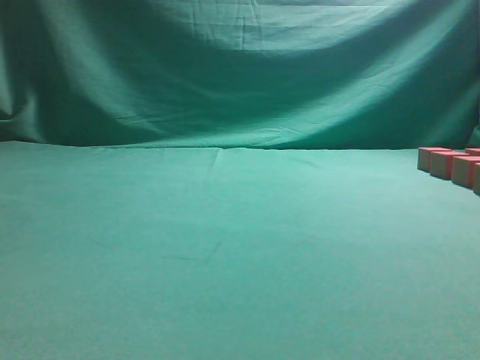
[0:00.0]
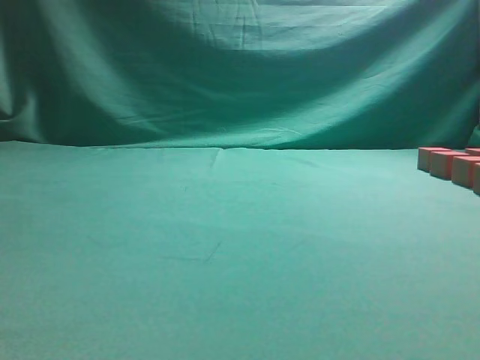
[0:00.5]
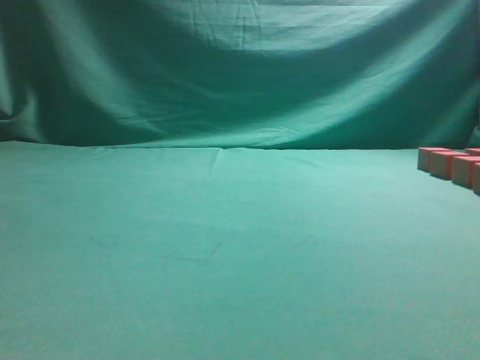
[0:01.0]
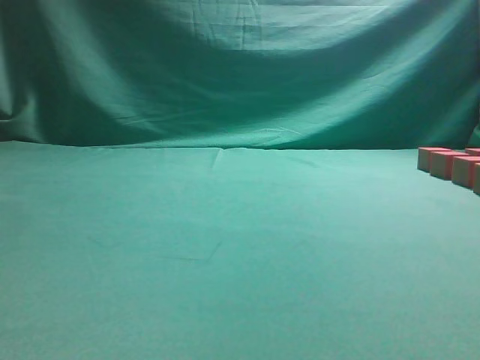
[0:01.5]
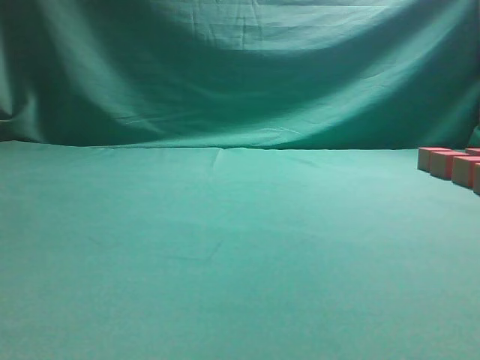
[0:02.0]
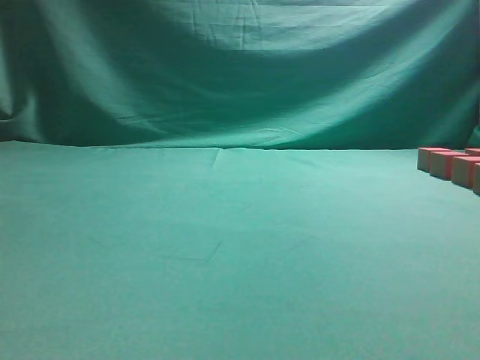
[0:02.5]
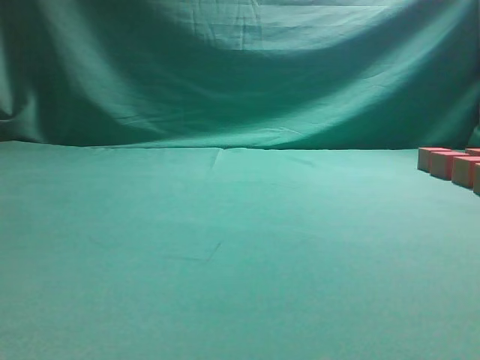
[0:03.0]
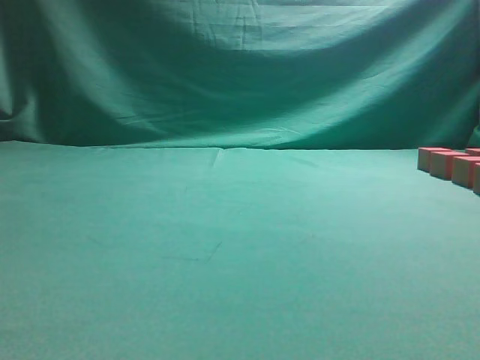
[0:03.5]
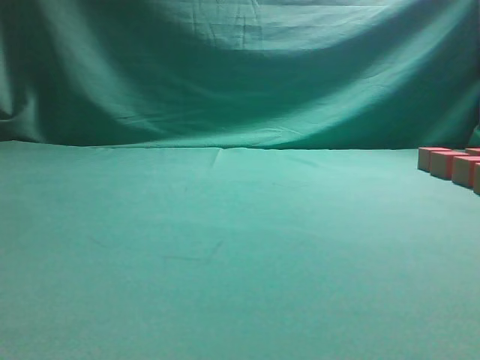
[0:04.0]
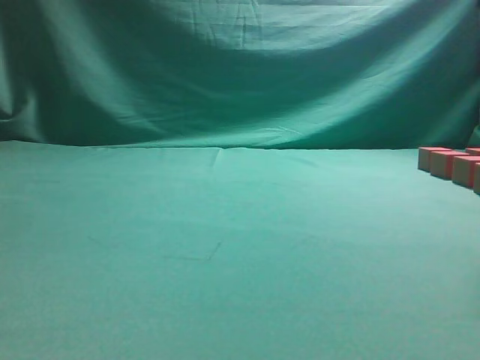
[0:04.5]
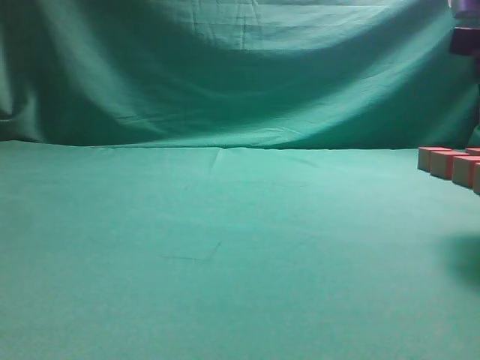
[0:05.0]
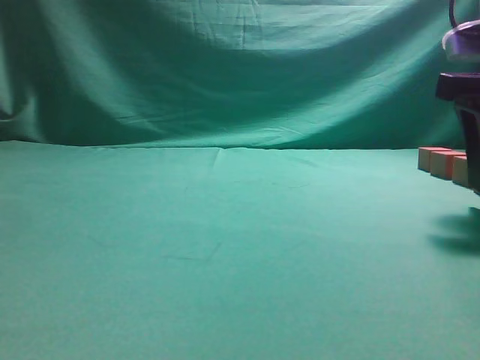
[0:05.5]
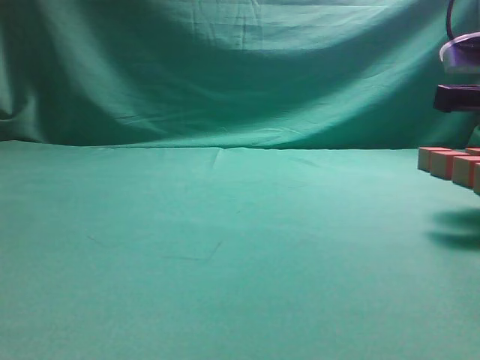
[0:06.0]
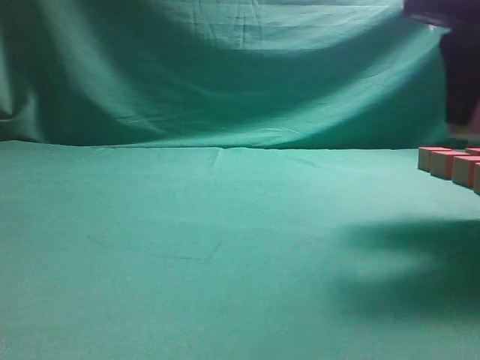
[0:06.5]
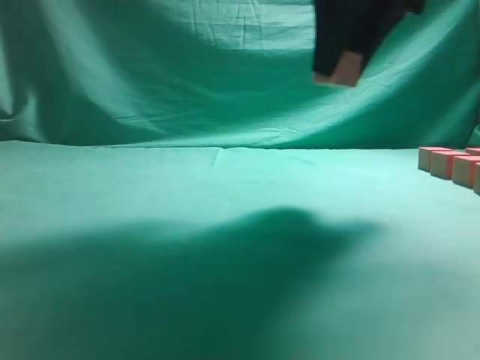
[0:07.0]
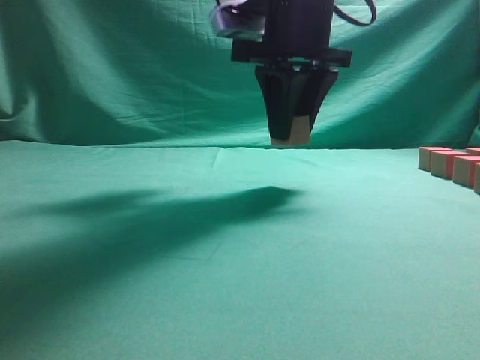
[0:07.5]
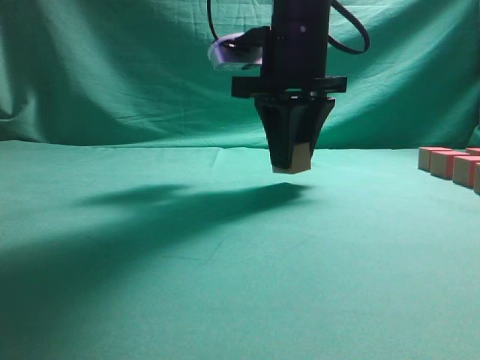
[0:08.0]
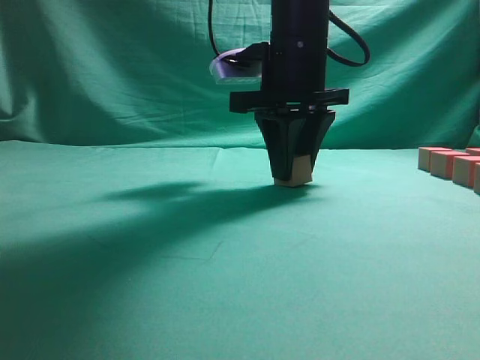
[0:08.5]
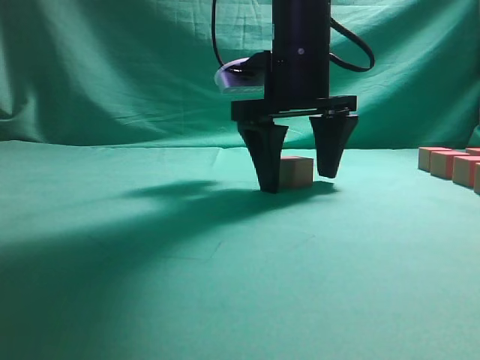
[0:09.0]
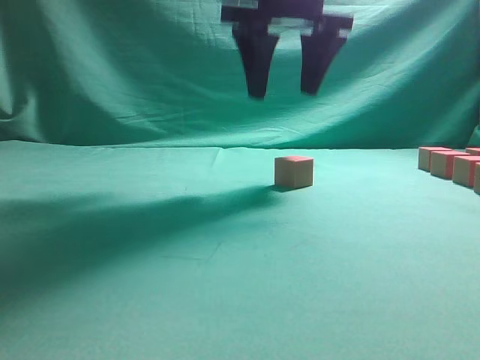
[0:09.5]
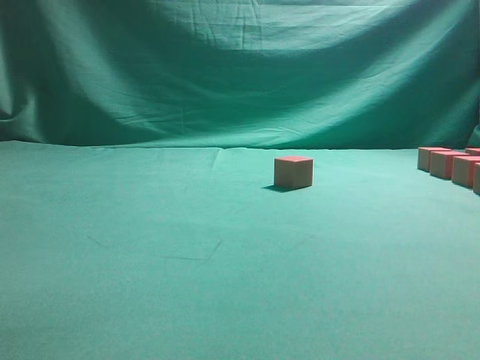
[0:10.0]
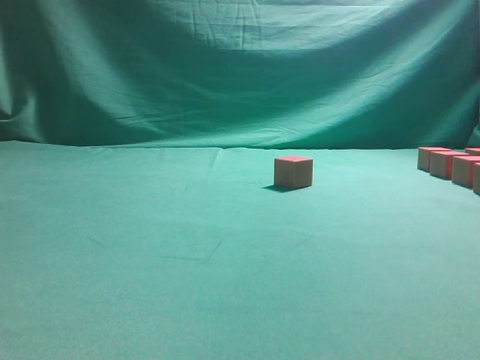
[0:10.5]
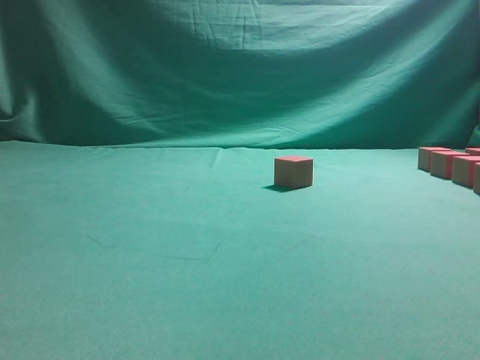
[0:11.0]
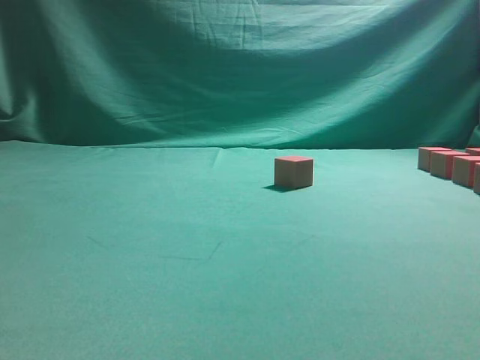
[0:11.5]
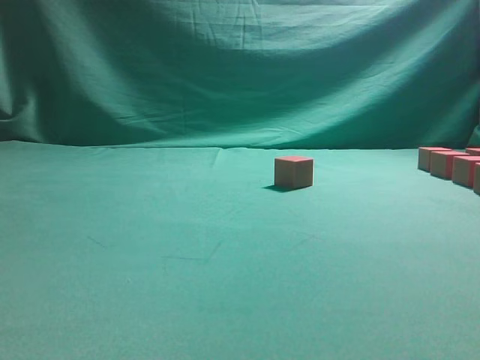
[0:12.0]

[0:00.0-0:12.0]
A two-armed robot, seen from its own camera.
Task of the whole recording: pick up the multiple cubes in two columns one by one and place them in another position on the table.
Step, 0:00.0 to 0:06.5: Pick up the block on the table.
Step, 0:07.0 to 0:09.5: Place the block at the correct position to assemble the letter S.
0:04.0 to 0:06.0: The right gripper goes roughly 15 cm forward and downward, and opens its fingers.
0:06.0 to 0:08.0: The right gripper travels to the left and forward by approximately 20 cm.
0:08.0 to 0:10.0: The right gripper travels upward by about 25 cm, and opens.

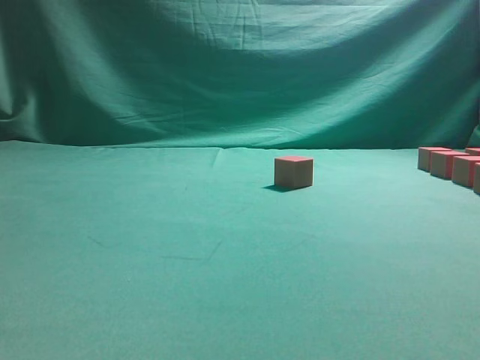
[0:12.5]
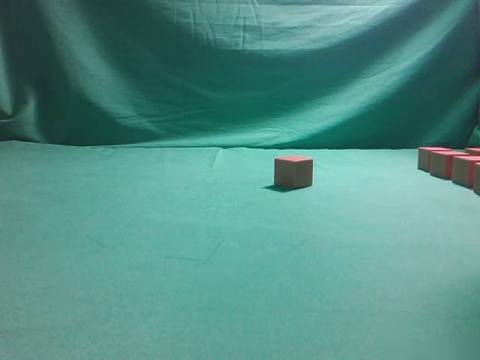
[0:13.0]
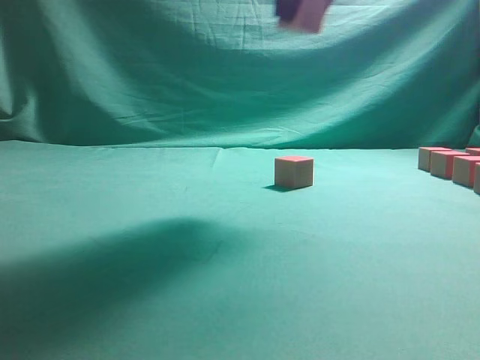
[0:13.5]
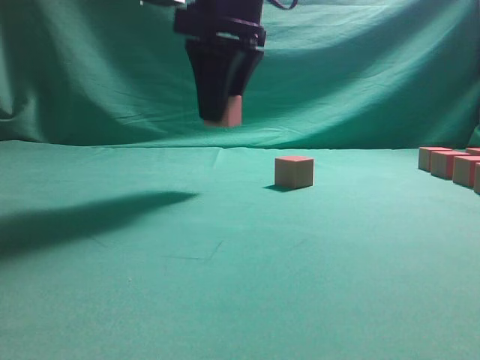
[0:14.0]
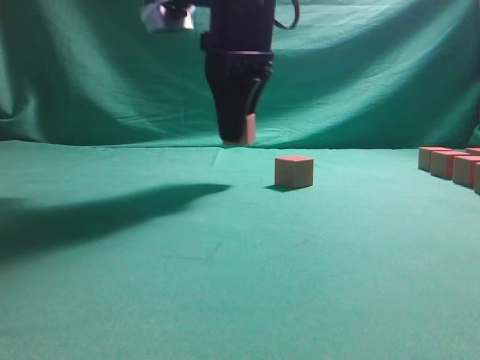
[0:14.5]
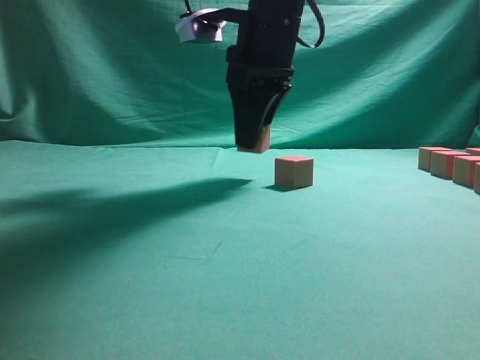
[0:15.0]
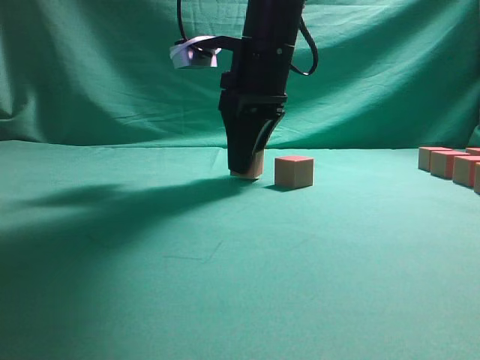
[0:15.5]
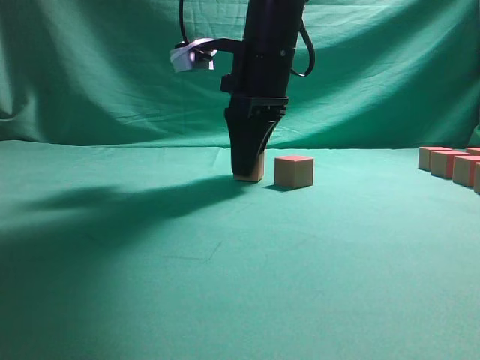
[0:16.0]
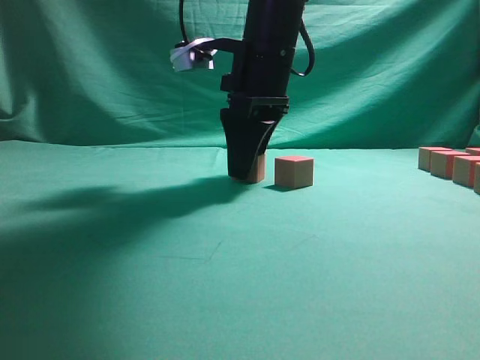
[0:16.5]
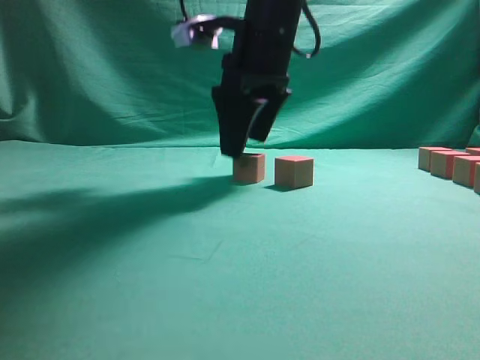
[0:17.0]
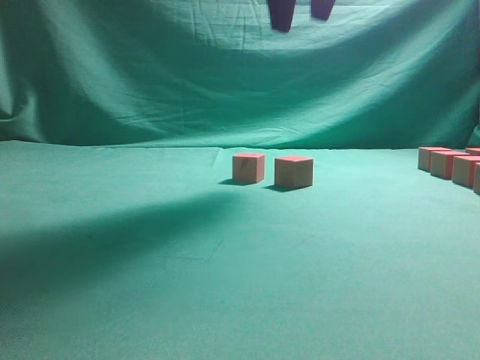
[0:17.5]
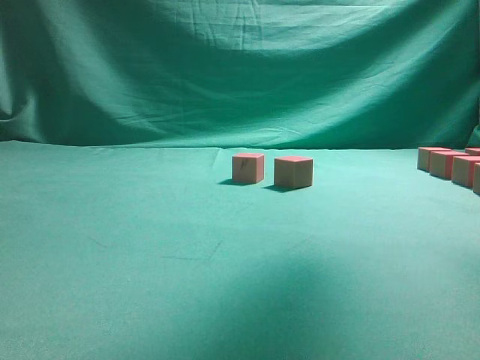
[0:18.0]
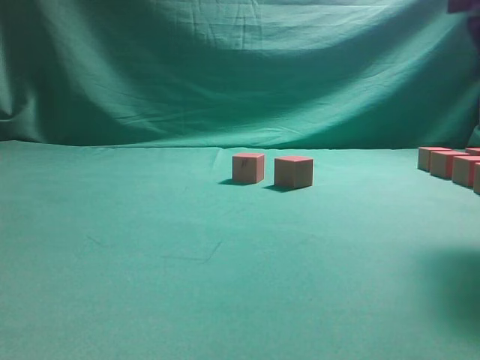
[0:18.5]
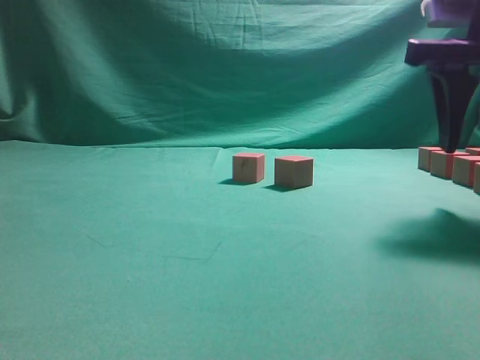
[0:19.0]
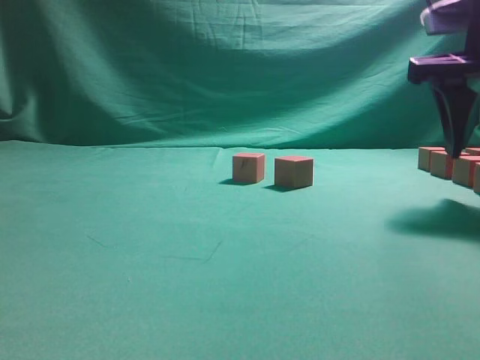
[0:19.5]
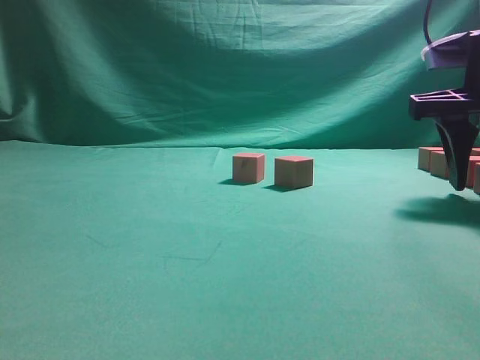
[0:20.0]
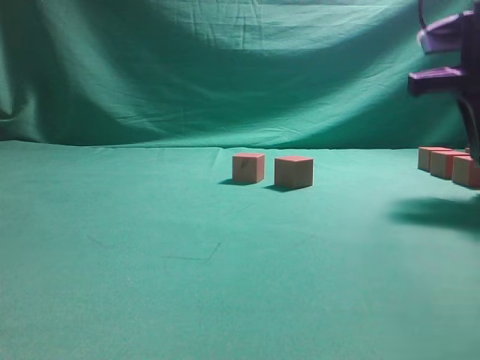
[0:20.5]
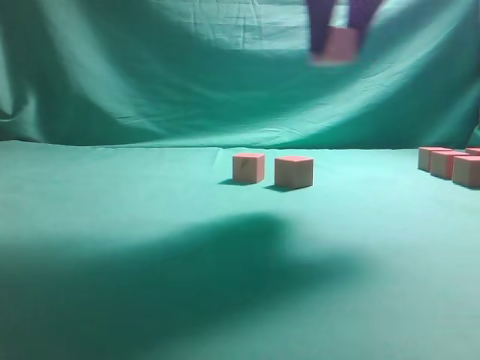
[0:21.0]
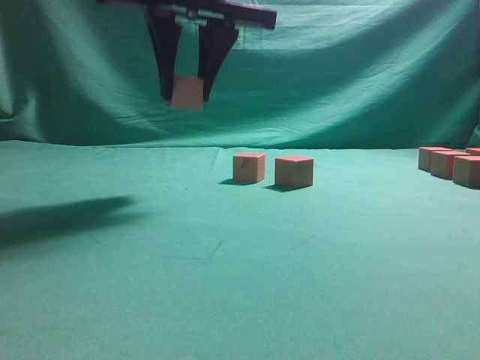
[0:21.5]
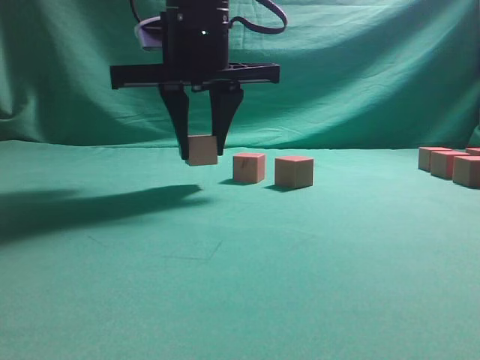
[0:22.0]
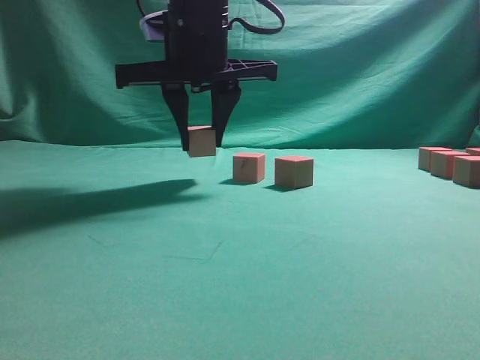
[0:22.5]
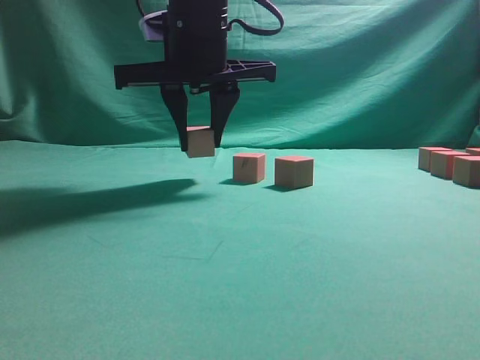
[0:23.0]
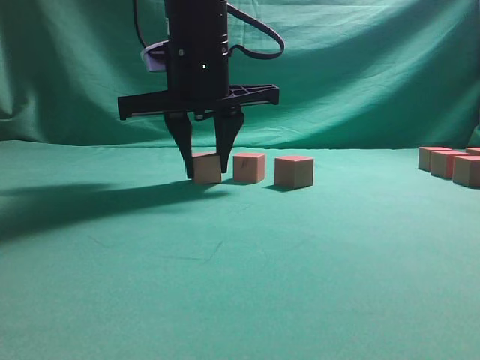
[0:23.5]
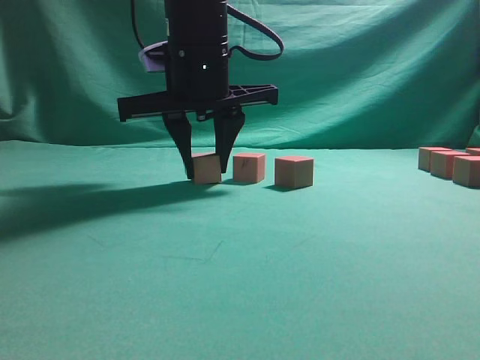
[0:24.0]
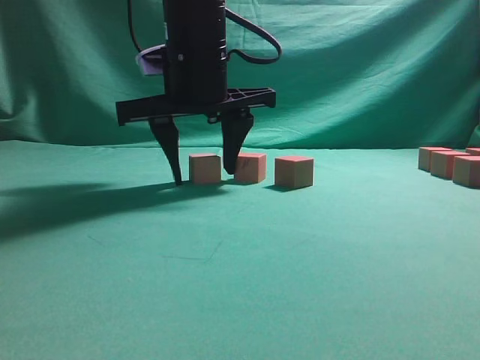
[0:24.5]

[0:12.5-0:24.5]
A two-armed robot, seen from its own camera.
Task of the whole recording: pick up the multiple cubes in two columns one by one and place them in another position on the table.
Step, 0:13.5 to 0:17.0: Place the block at the correct position to assemble the letter S.
Step, 0:17.5 to 0:21.0: Pick up the block on the table.
0:12.5 to 0:14.5: The right gripper goes about 30 cm to the left.
0:14.5 to 0:16.5: The right gripper ends up about 5 cm from where it was.
0:16.5 to 0:18.5: The right gripper shifts approximately 25 cm to the right and backward, and goes upward and returns, approximately 20 cm each way.
0:18.5 to 0:20.5: The right gripper goes some 10 cm forward and downward, and closes up.
0:20.5 to 0:22.5: The right gripper heads to the left, covering roughly 25 cm.
0:22.5 to 0:24.5: There are only small adjustments of the grippers.

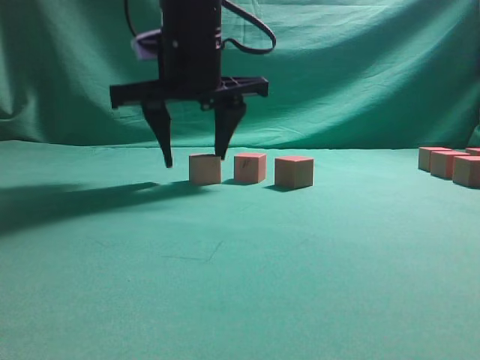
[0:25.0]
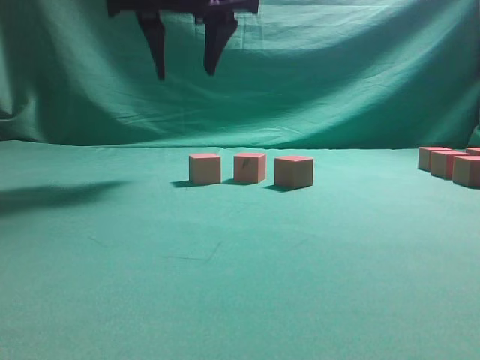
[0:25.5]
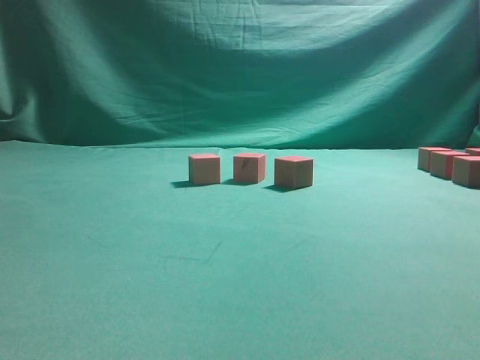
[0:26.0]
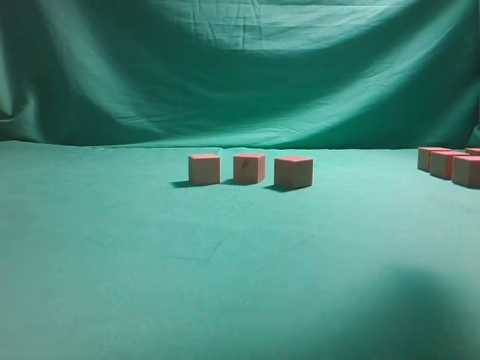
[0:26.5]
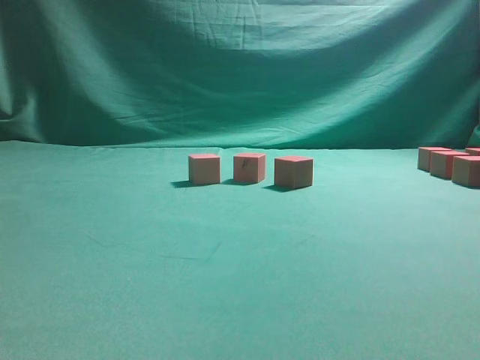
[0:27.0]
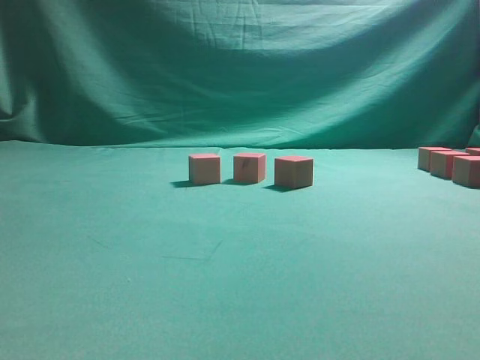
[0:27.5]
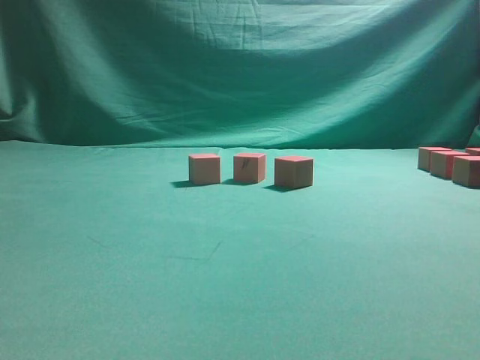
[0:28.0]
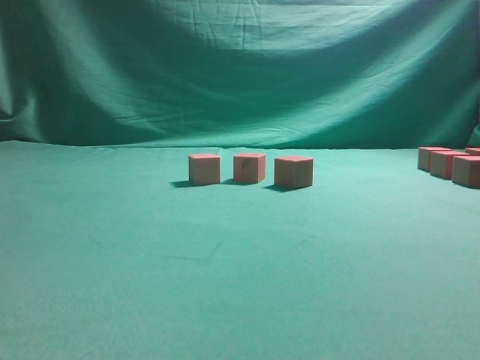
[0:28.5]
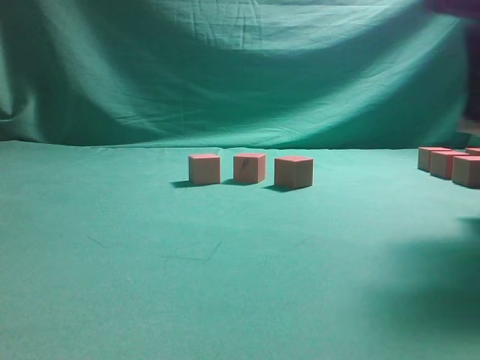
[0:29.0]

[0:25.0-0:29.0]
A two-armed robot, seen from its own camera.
Task of the whole recording: pick up the multiple cubes in two columns one by one and place them in another position on the table.
0:25.0 to 0:27.0: The right gripper travels to the right by about 30 cm.
